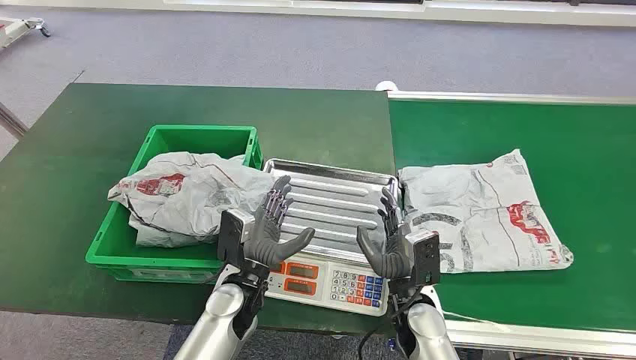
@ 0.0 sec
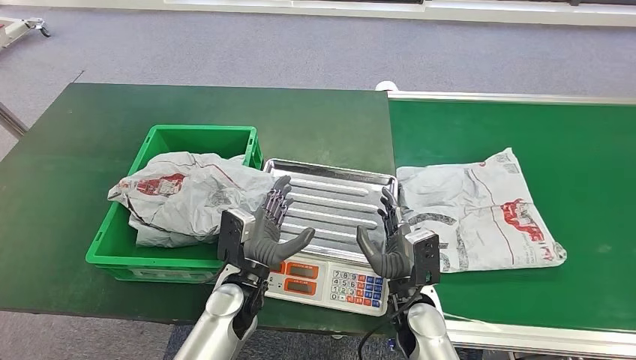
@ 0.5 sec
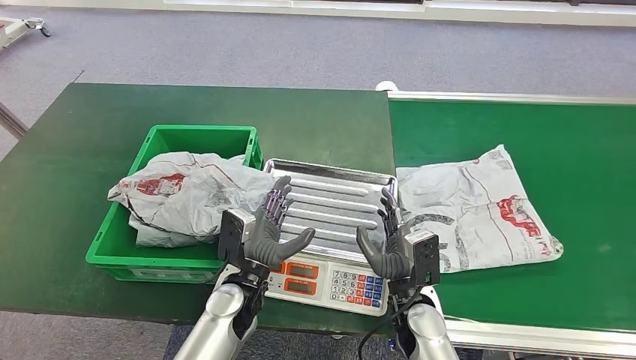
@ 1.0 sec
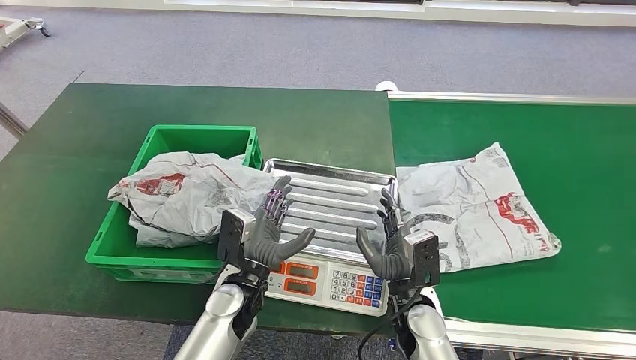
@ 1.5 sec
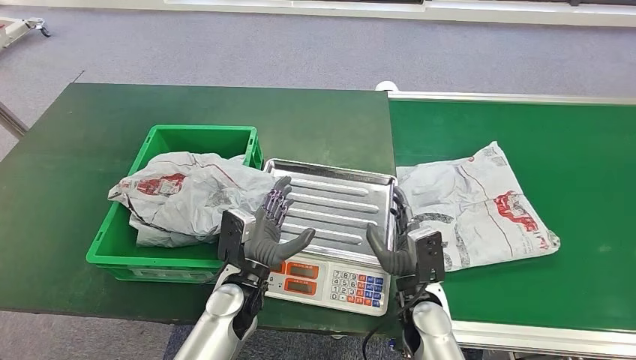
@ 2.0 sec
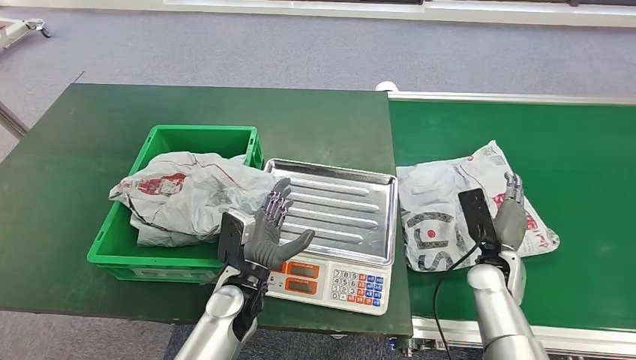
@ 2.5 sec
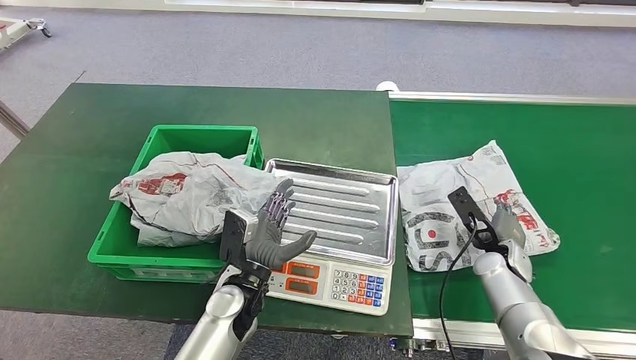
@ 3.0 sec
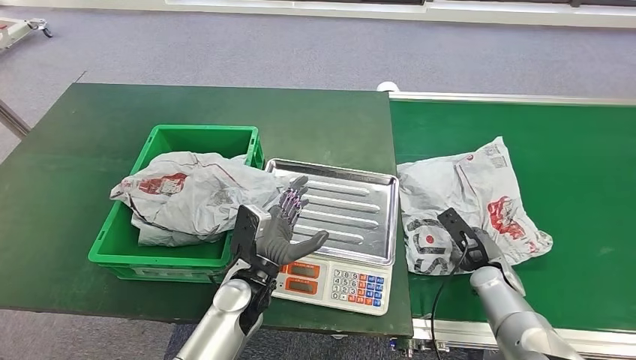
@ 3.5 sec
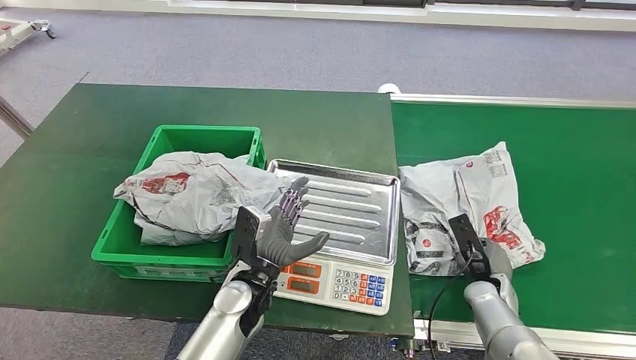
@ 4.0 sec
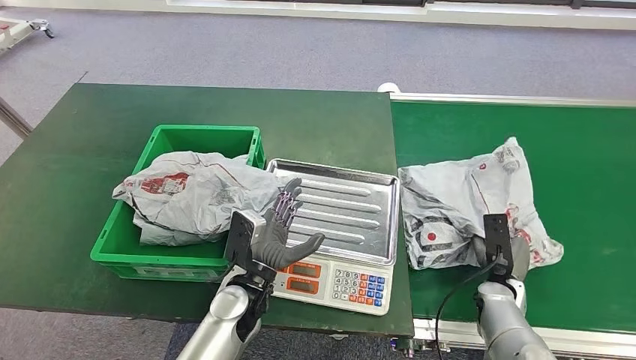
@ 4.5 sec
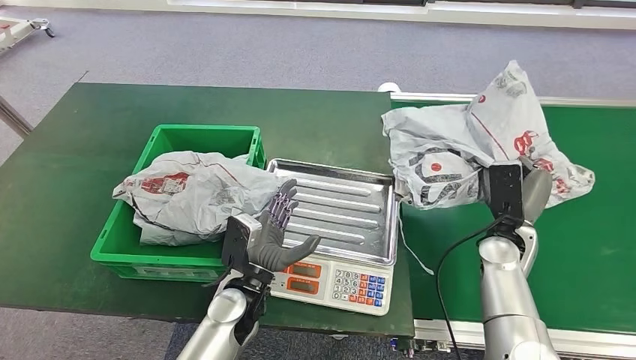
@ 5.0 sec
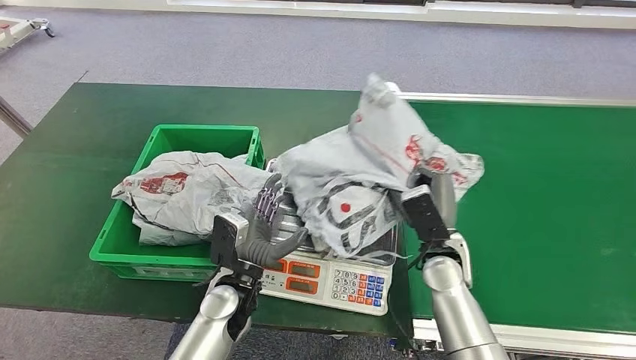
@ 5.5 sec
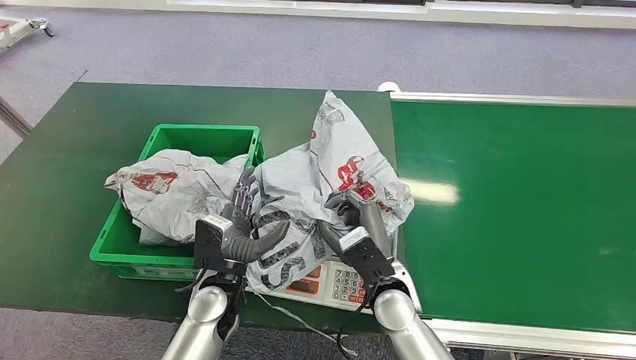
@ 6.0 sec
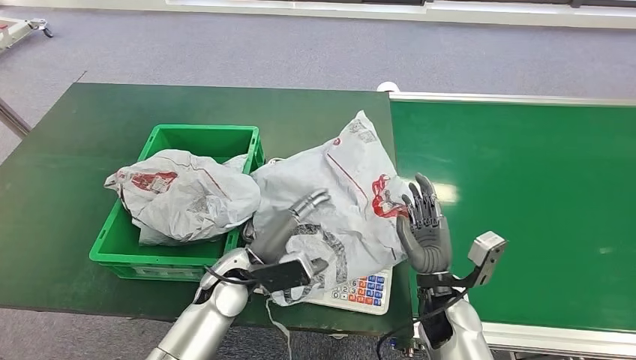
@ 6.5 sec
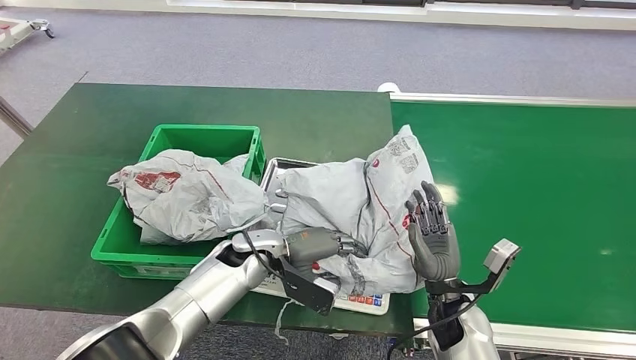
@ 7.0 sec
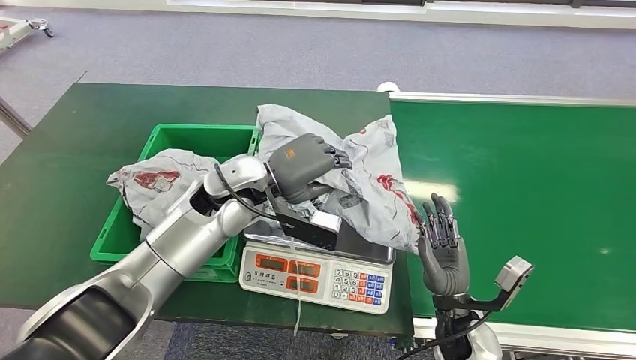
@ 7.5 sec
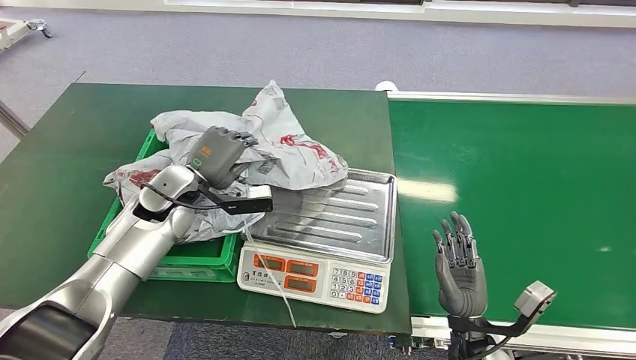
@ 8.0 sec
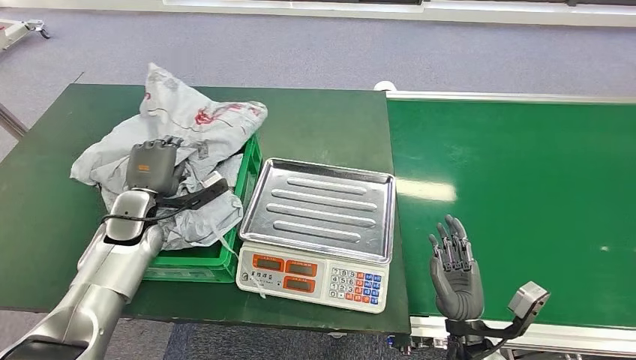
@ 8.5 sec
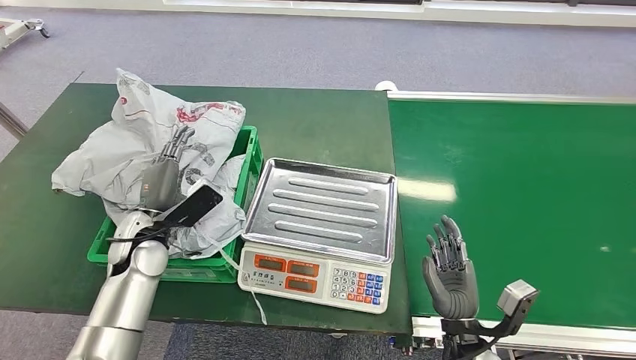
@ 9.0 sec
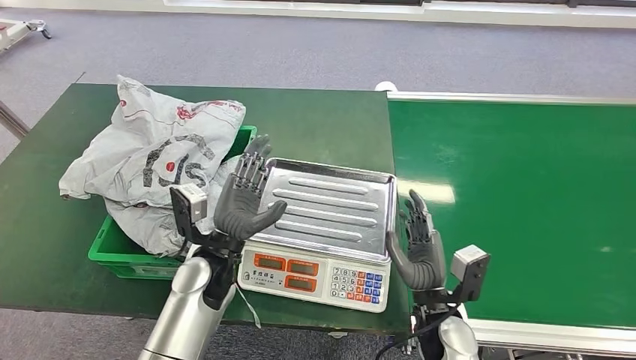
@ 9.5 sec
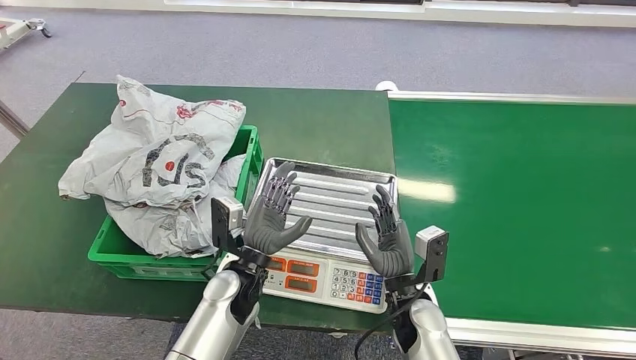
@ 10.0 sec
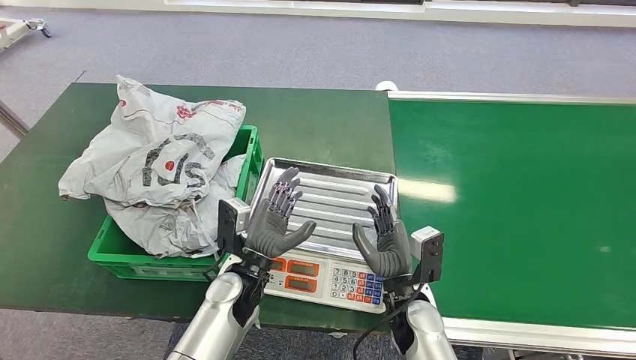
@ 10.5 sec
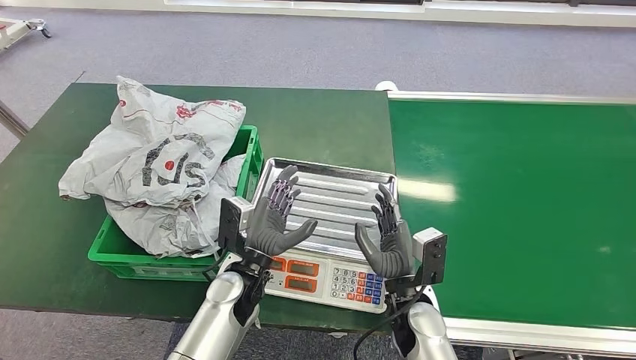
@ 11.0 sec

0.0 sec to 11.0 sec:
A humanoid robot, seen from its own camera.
Step, 0.0 sec to 4.5 sec: Pick up the package from the conveyor belt.
Step, 5.0 sec to 6.5 sec: Place the package onto the inbound machine.
Step, 7.0 sec to 8.5 sec: Pick up the package from the inbound machine.
Step, 9.0 sec to 11.0 sec: Place the package into the parcel locker.
2.0 sec to 3.5 sec: The right hand shifts approximately 20 cm to the right and forward.
9.0 sec to 11.0 sec: The left hand moves to the right, some 20 cm. The right hand moves to the left and forward, some 10 cm.
